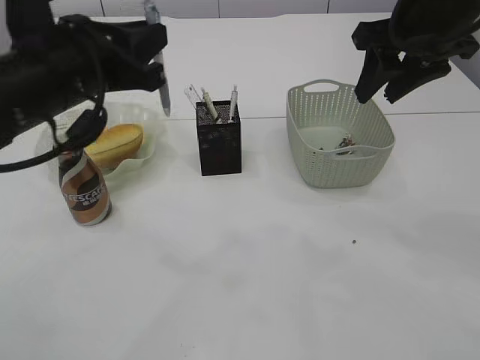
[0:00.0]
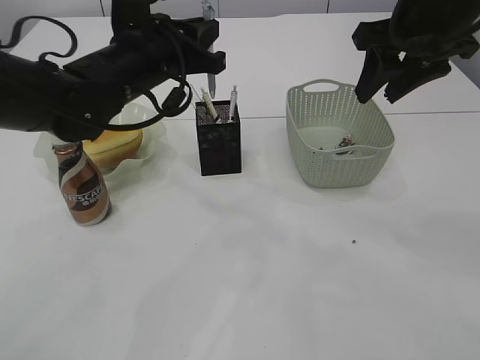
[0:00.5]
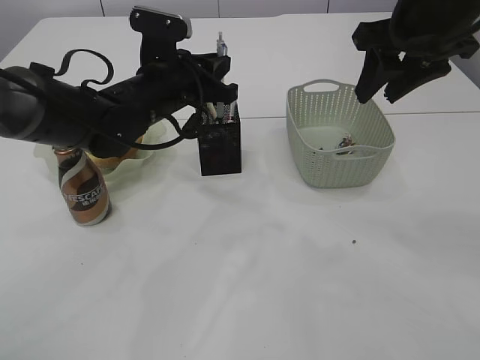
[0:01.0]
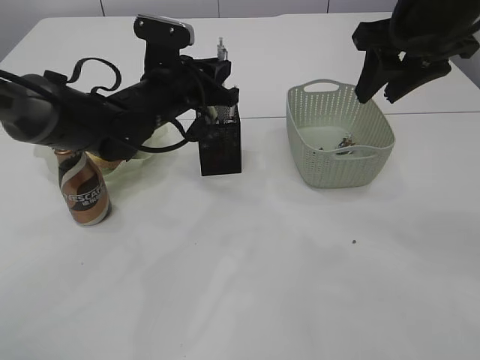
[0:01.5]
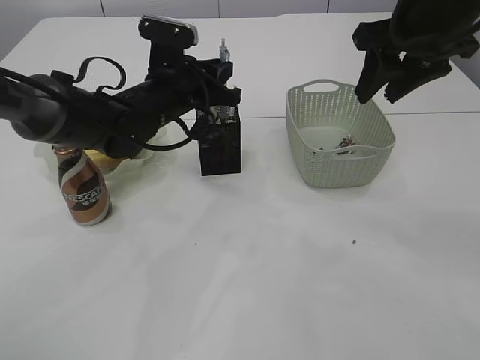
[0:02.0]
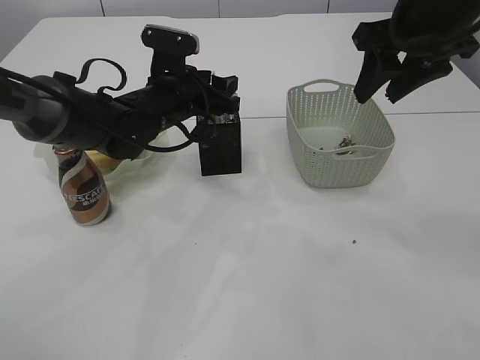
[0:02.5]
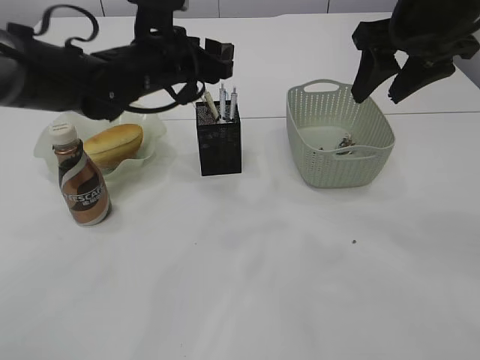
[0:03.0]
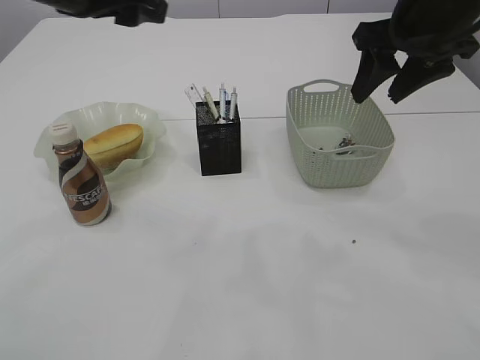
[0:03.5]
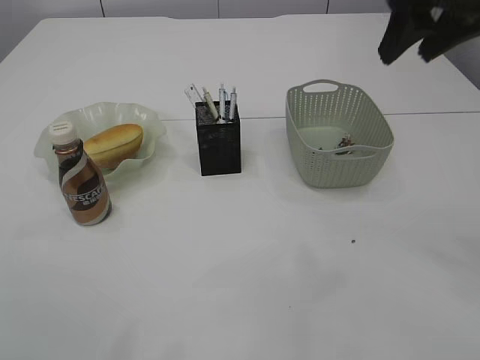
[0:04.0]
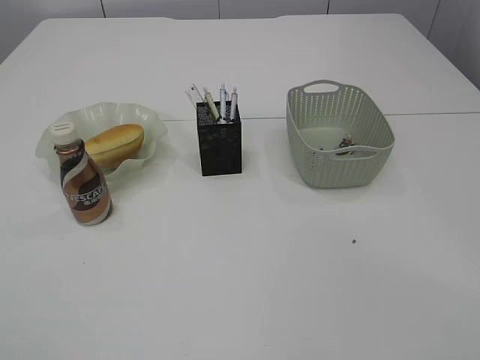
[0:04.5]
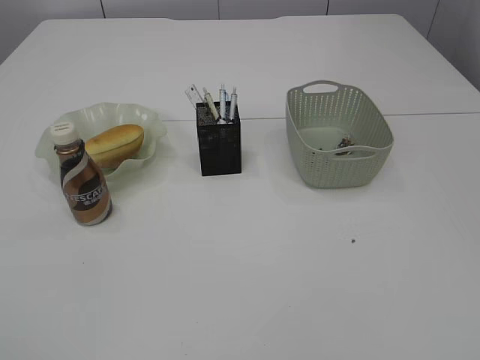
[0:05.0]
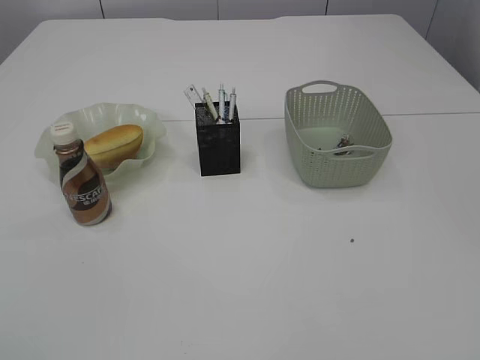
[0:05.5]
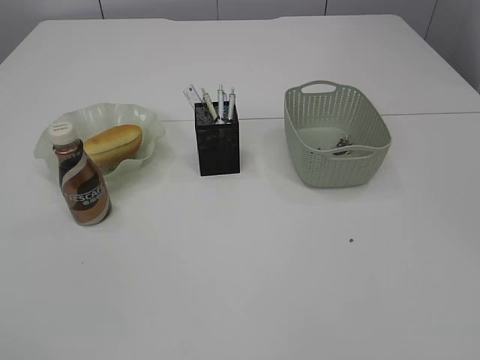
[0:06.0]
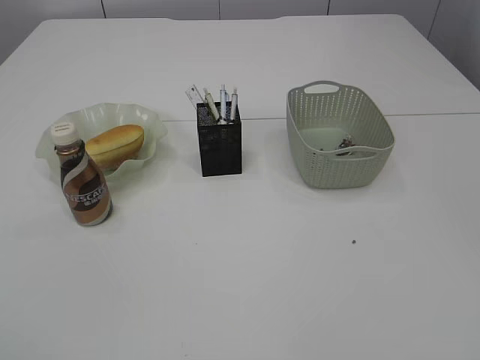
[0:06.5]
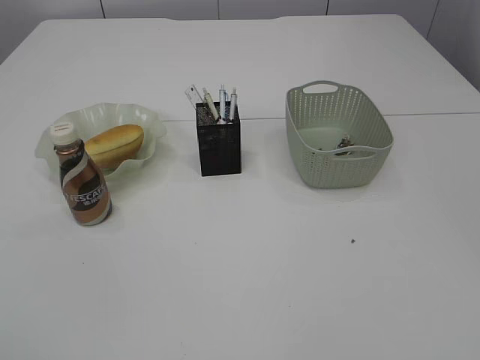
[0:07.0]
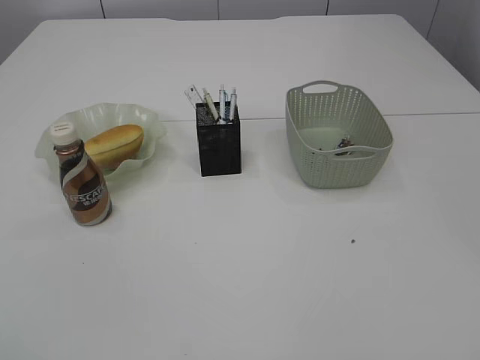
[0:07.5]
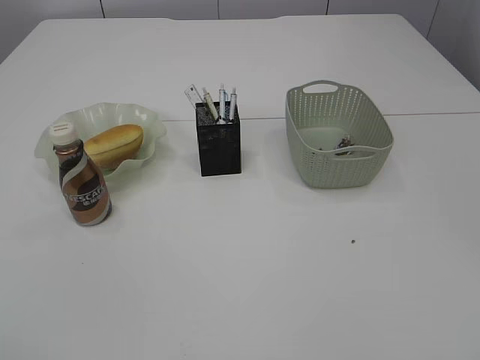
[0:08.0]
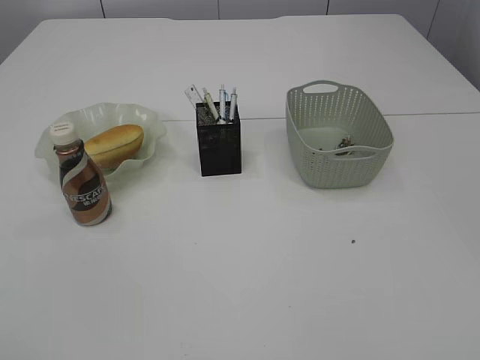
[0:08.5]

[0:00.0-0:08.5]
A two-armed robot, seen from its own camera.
Step, 0:00.0 to 0:03.0: Place the pen into the pen holder.
0:00.0 to 0:02.0: The left gripper is displaced forward, downward and to the right by approximately 20 cm.
0:02.0 to 0:04.0: The right gripper ends up about 5 cm from where it was. The left gripper is displaced upward, backward and to the left by roughly 35 cm, and opens its fingers.
0:04.0 to 0:06.5: The right gripper heads backward, covering roughly 35 cm. Meanwhile the left gripper is displaced backward, downward and to the left by roughly 30 cm.
